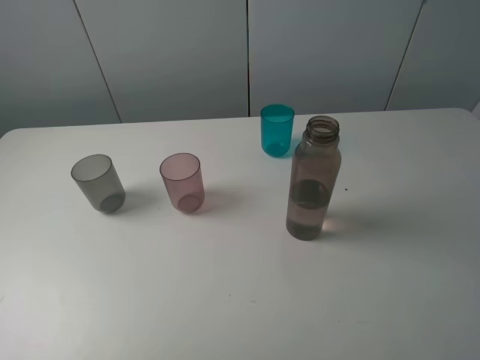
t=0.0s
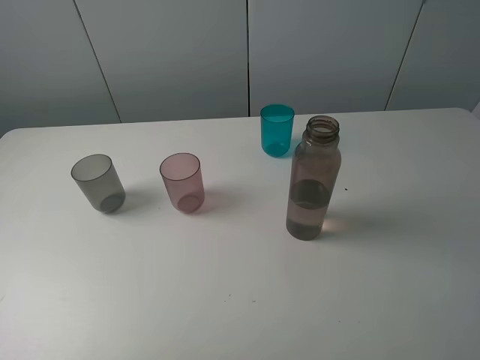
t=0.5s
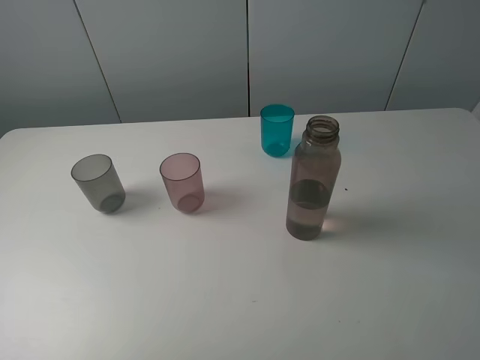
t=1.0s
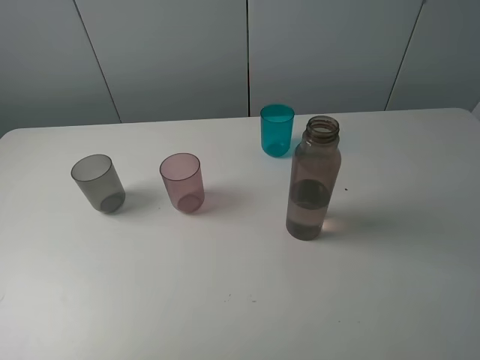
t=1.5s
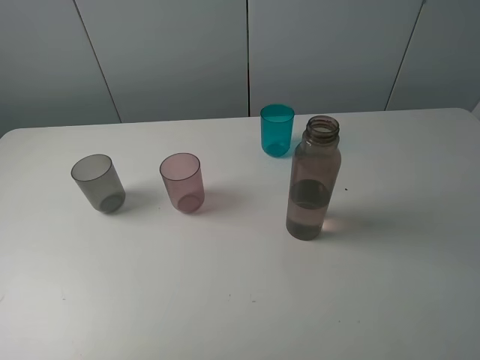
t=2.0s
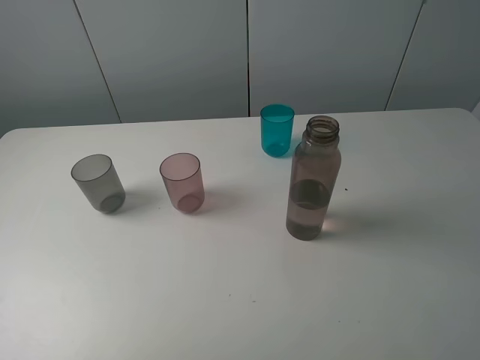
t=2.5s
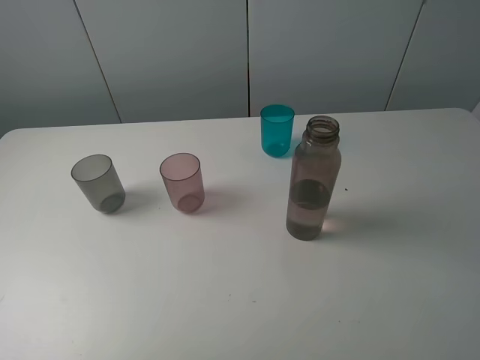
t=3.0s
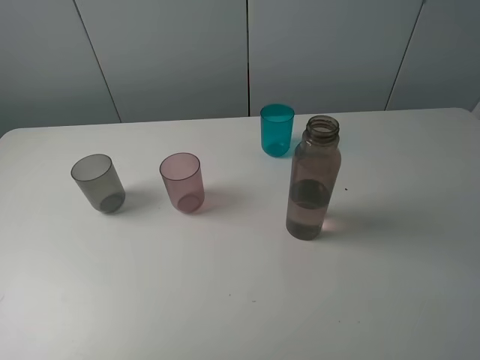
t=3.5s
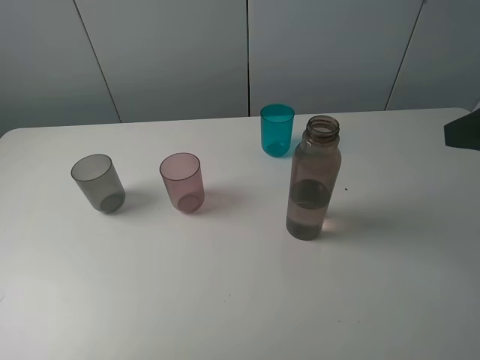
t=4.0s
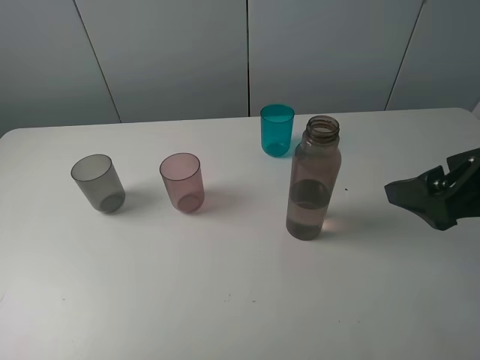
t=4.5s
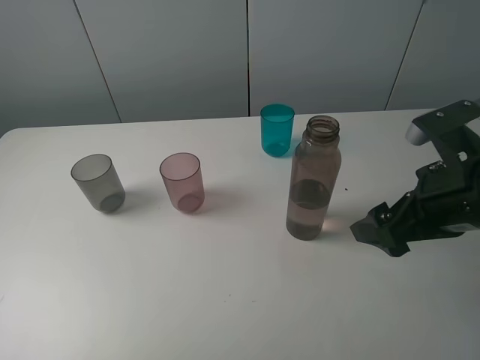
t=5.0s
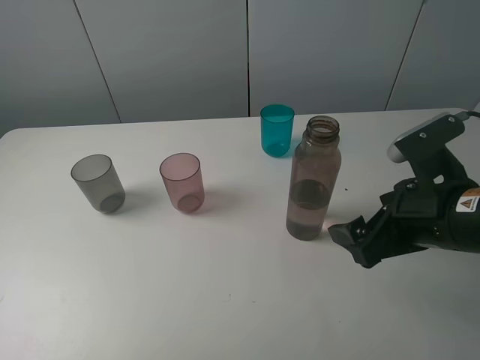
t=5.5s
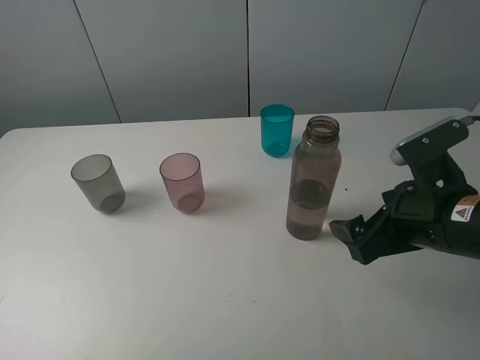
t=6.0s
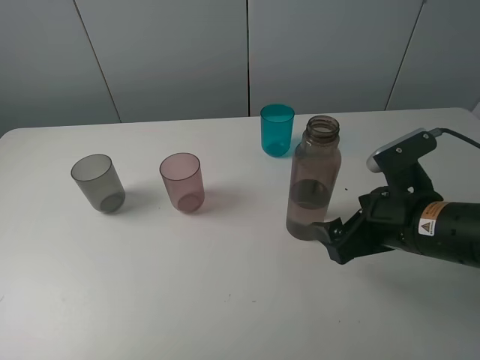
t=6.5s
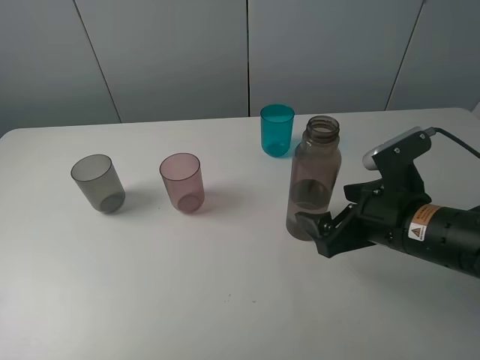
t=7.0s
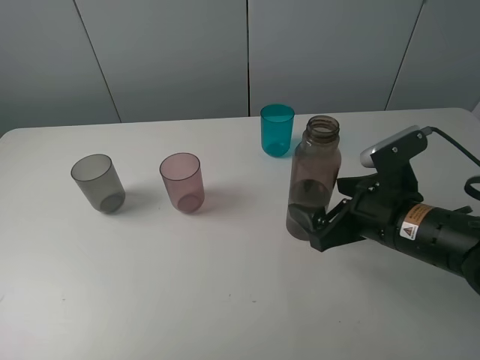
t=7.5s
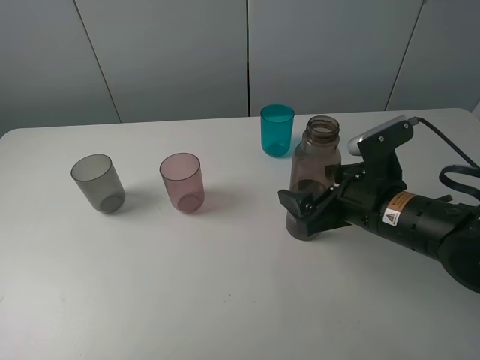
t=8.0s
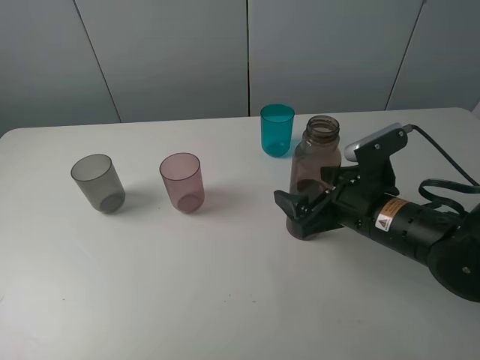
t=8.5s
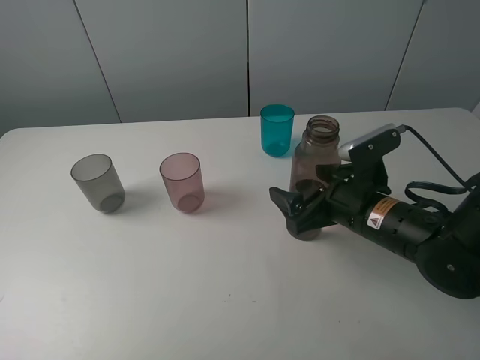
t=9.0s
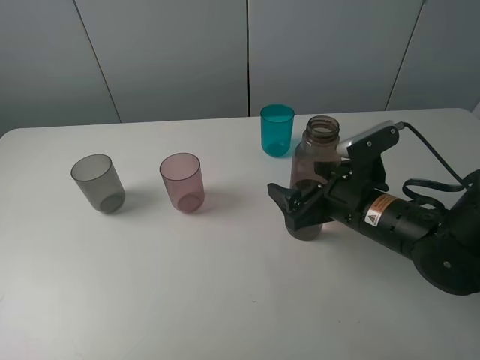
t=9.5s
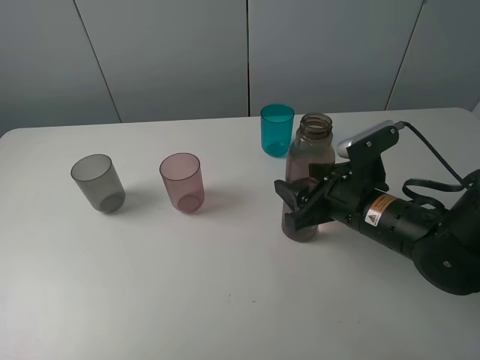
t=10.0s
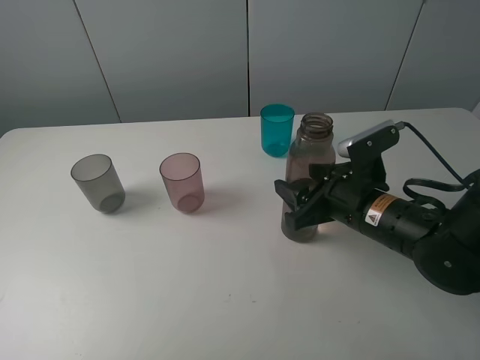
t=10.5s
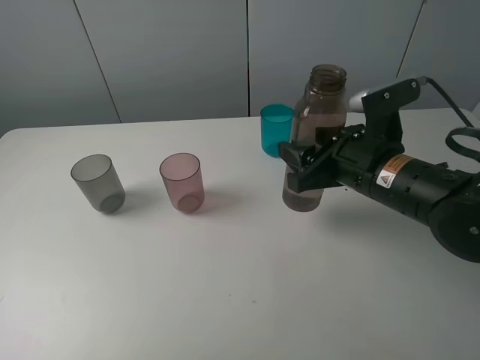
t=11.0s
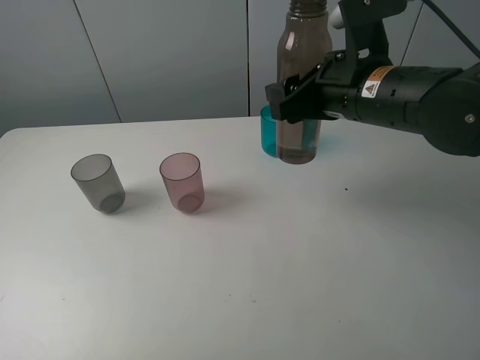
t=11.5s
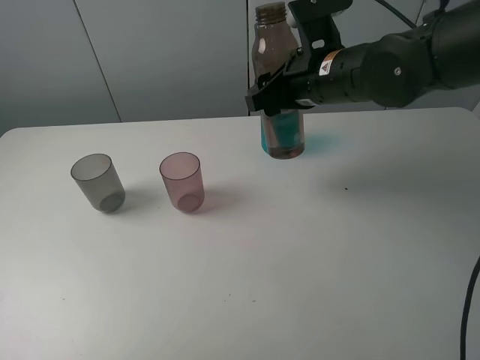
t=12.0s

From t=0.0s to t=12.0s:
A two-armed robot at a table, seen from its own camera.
Task of the whole recording: pick up the bottle filled with water and pour water into the middle cup of the three cups.
Step, from t=0.0s to t=10.0s: Grasp the brown bottle with the right gripper.
From t=0.0s to t=2.0s: Both grippers stay put.
From t=2.0s to t=4.0s: The right gripper travels forward by some 15 cm.
From t=4.0s to t=6.0s: The right gripper heads downward and to the left, covering some 15 cm.
From t=6.0s to t=8.0s: The right gripper changes place by about 5 cm.
From t=8.0s to t=10.0s: The right gripper closes.
From t=10.0s to t=12.0s: The right gripper shifts some 15 cm upward, forward and to the left.

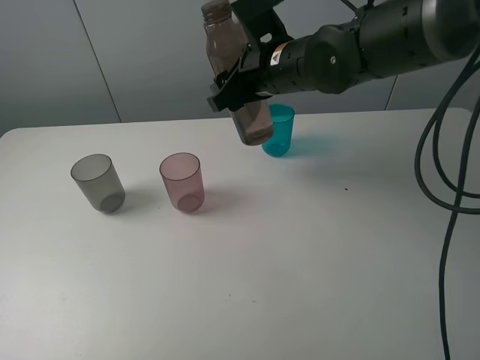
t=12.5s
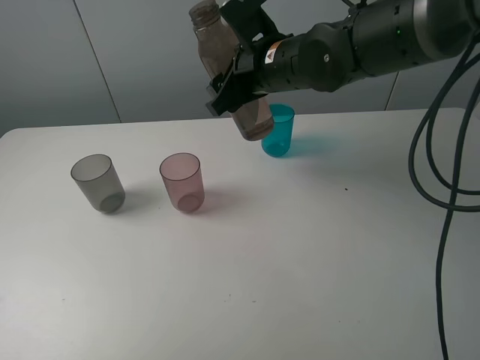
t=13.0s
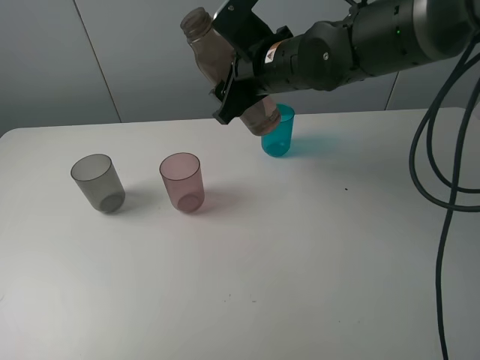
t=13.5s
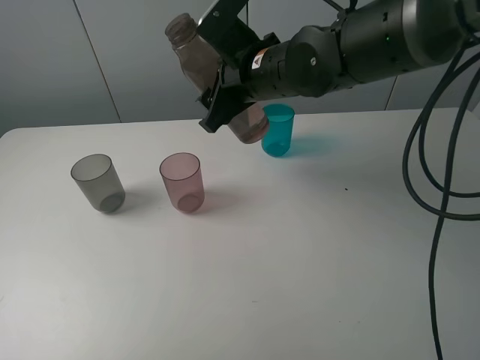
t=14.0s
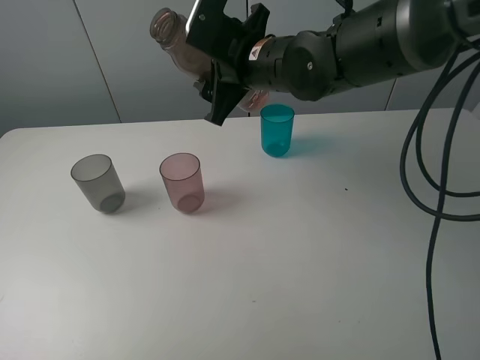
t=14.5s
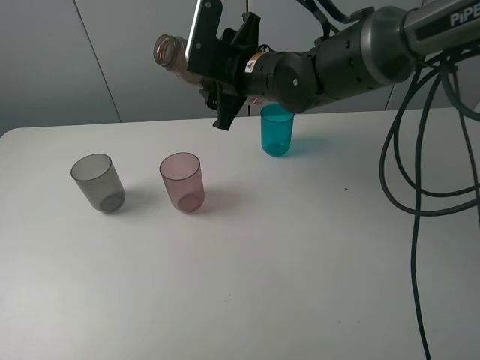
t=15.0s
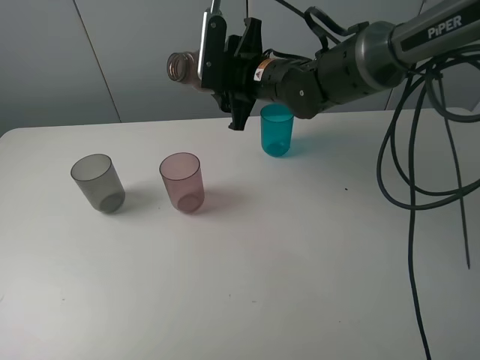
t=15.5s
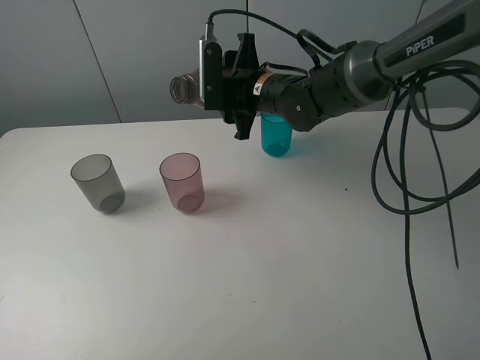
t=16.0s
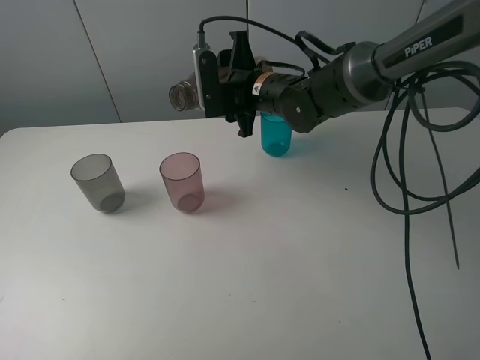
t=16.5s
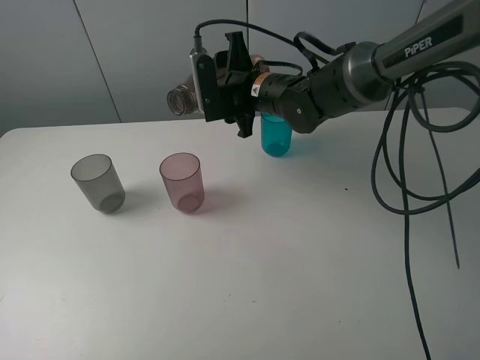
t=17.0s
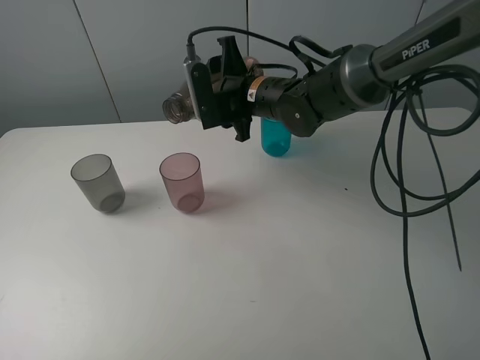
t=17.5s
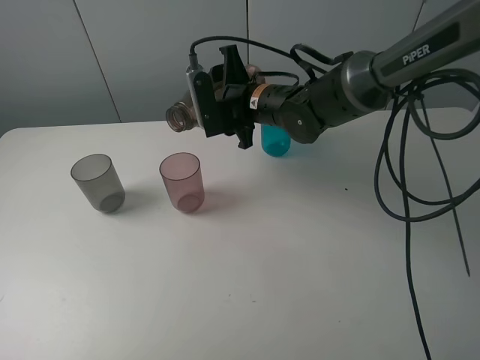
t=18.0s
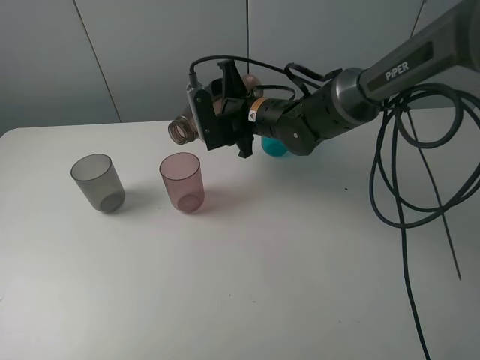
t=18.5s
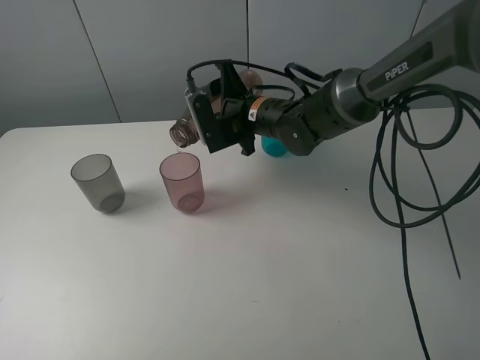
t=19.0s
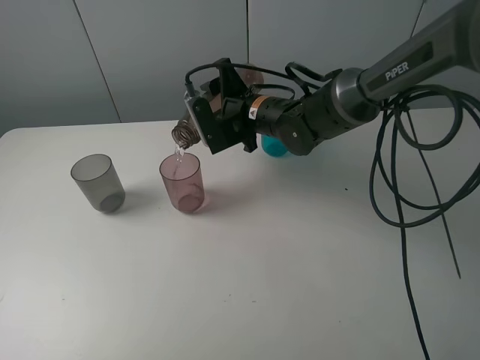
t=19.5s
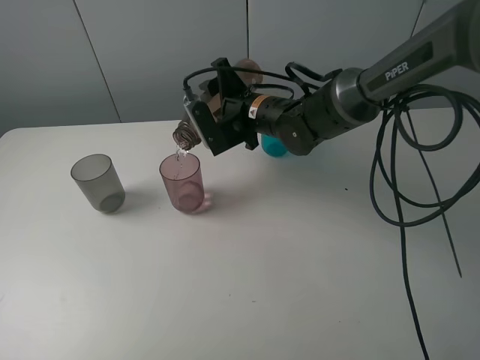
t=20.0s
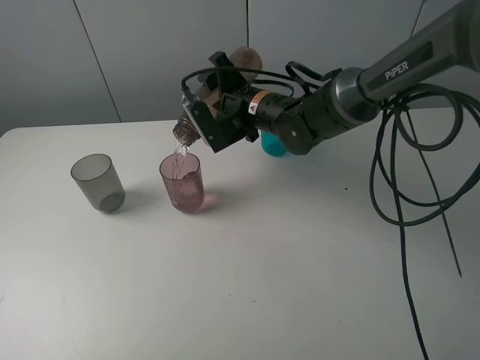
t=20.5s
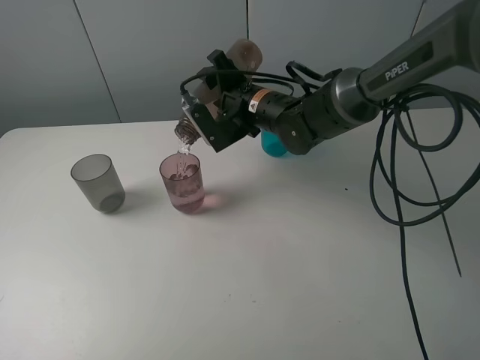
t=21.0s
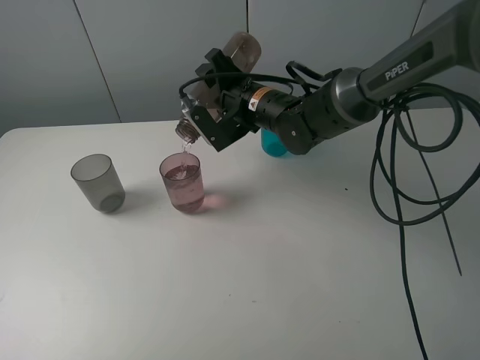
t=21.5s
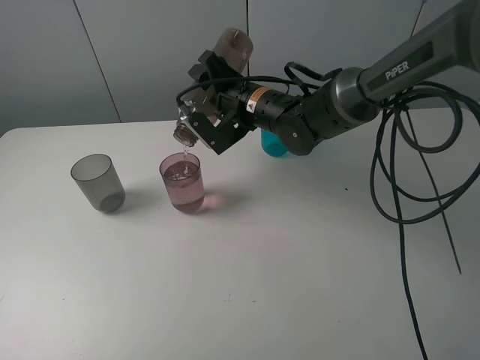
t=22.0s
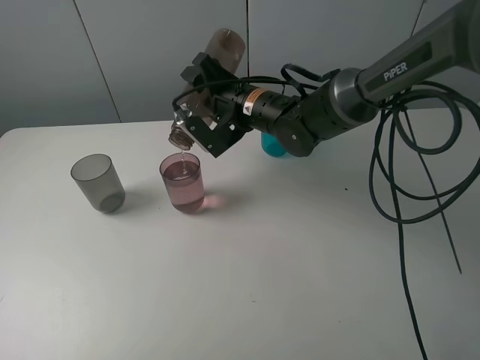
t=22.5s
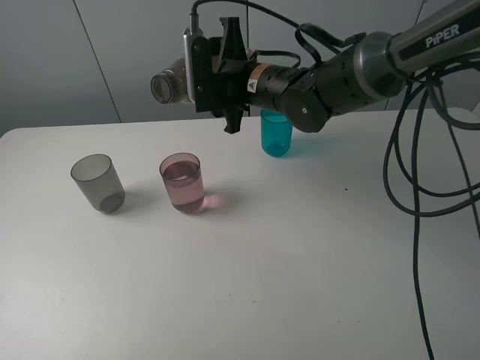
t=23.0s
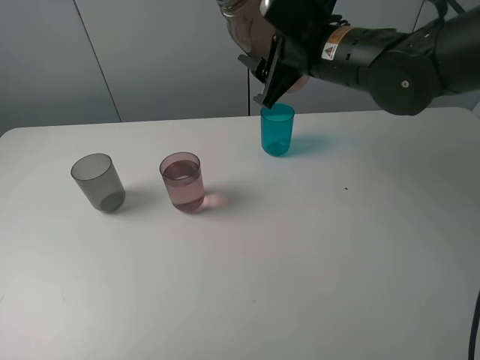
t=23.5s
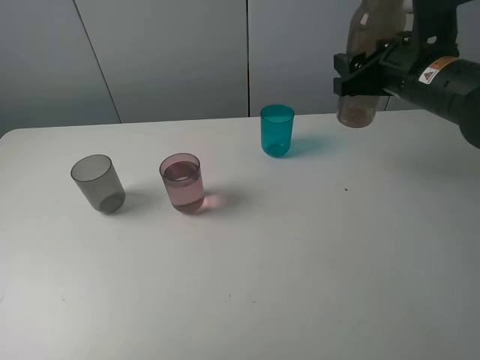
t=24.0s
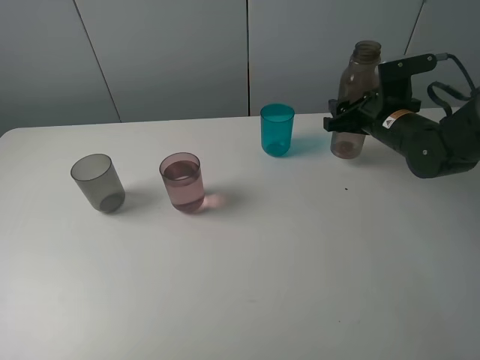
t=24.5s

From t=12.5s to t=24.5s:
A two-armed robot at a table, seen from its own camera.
Task of the whole recording: pick up the bottle filled with water and pour water into the middle cup of the three cups.
Step, from t=12.5s to t=22.5s: Pour water from brown bottle to red cup with the right gripper.
From t=14.5s to t=16.5s: The right gripper goes approximately 10 cm downward and forward.
From t=16.5s to t=18.5s: The grippers make only small movements.
From t=18.5s to t=20.5s: The grippers make only small movements.
From t=20.5s to t=22.5s: The grippers make only small movements.
From t=22.5s to t=24.5s: The right gripper moves to the right, approximately 20 cm.

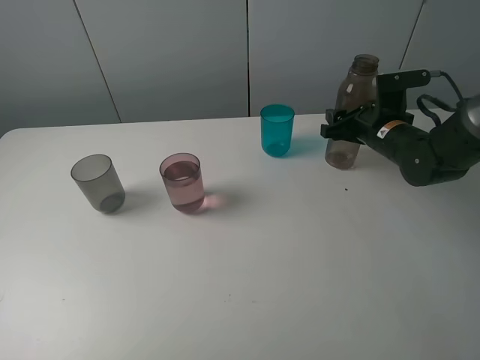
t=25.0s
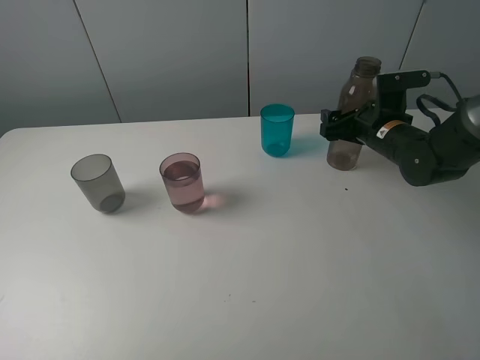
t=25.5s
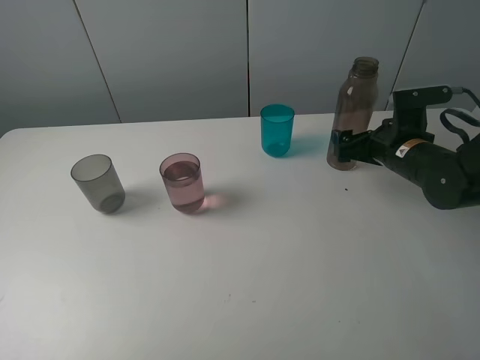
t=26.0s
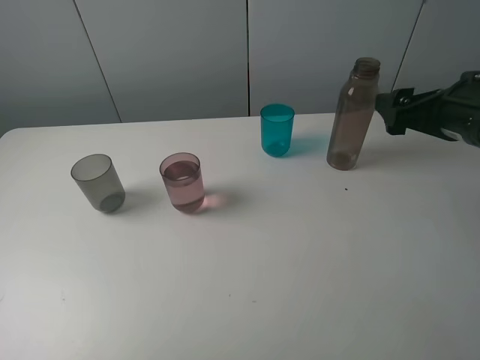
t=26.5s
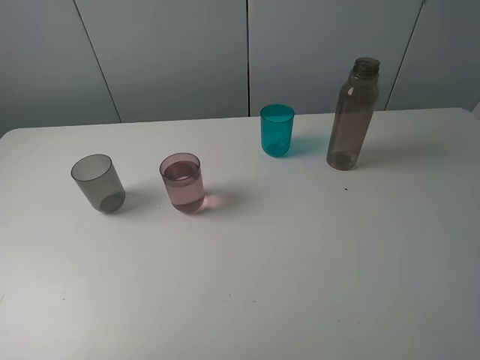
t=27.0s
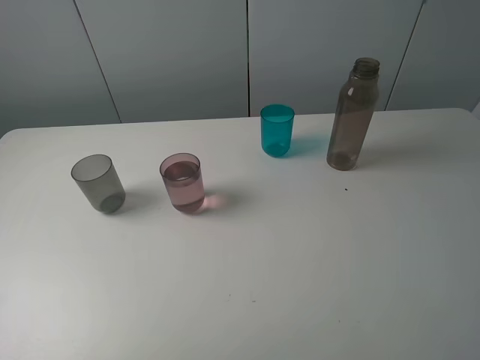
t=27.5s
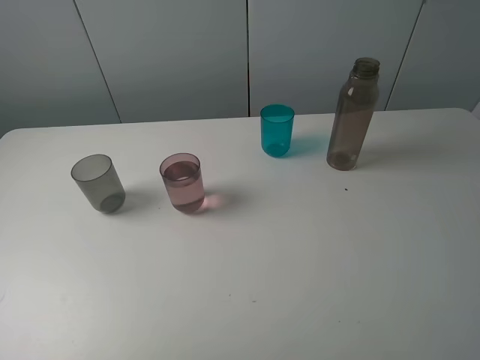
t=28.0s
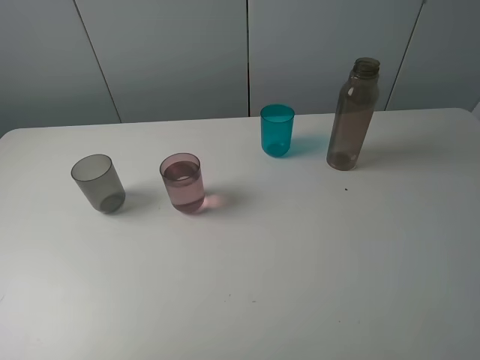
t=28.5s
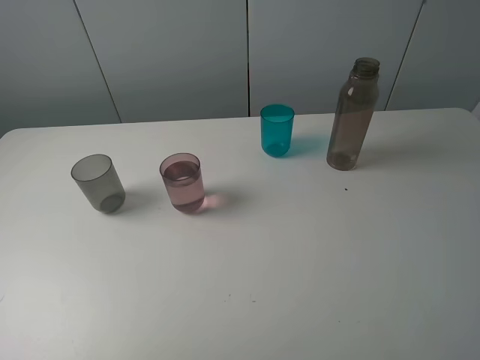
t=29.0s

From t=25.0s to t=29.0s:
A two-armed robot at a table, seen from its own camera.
Task of the whole recording: pick up the bottle filled with water and pour water into the middle cup of the three cups.
Step, from t=25.0s to t=28.0s: Place the brown bottle with the right gripper.
From t=25.0s to t=27.0s: The right gripper is displaced upward and backward by roughly 35 cm, and opens up.
